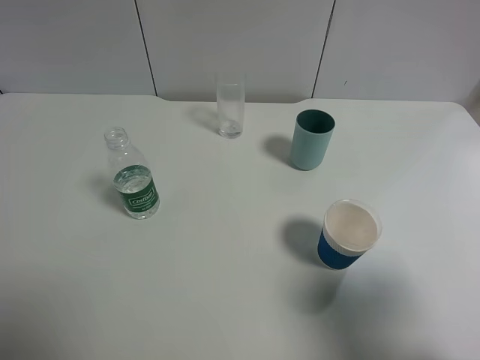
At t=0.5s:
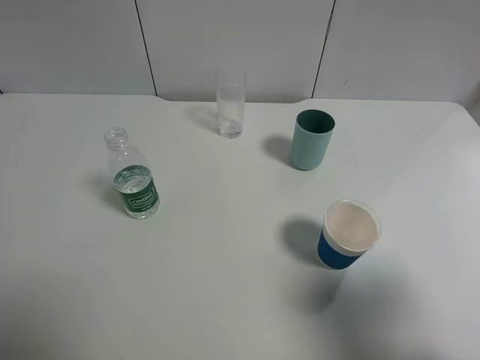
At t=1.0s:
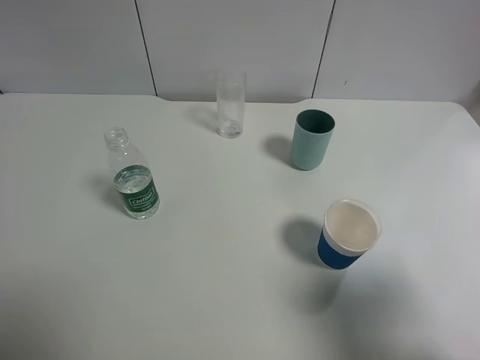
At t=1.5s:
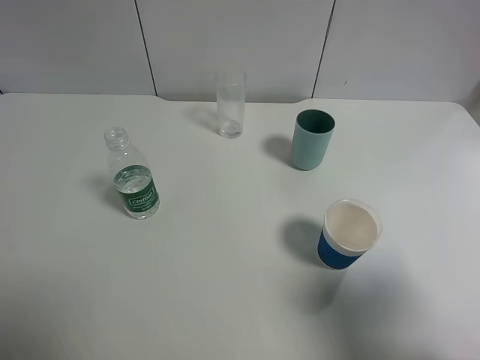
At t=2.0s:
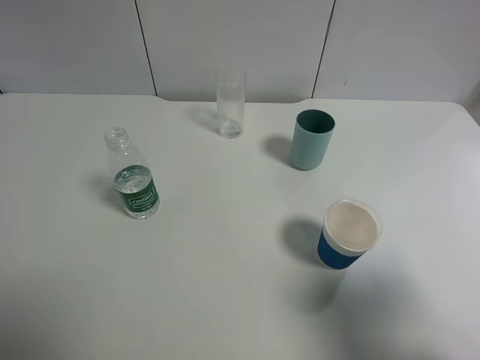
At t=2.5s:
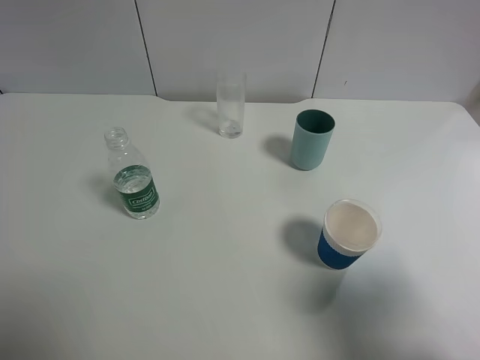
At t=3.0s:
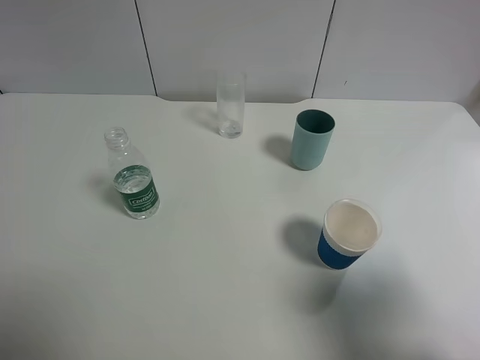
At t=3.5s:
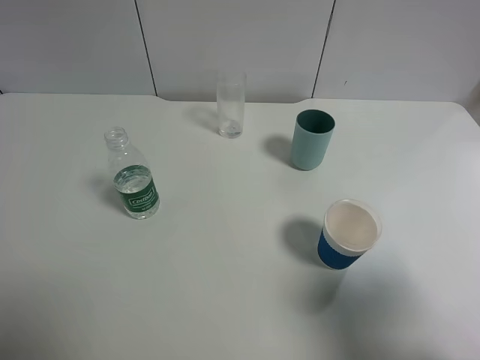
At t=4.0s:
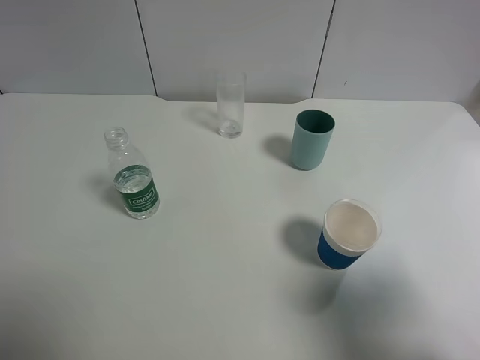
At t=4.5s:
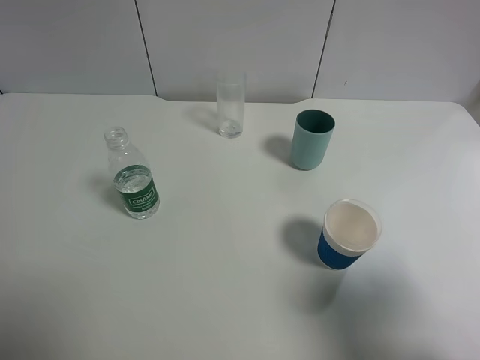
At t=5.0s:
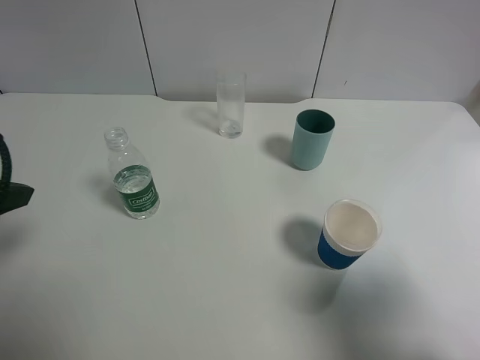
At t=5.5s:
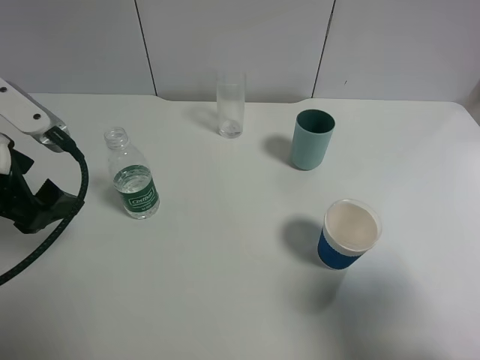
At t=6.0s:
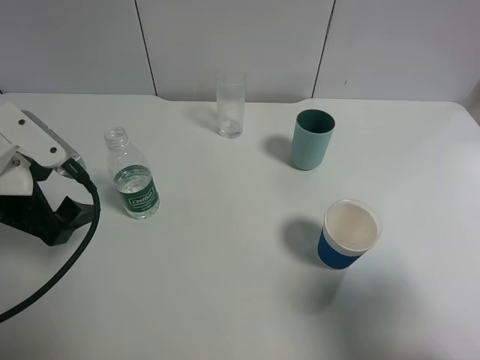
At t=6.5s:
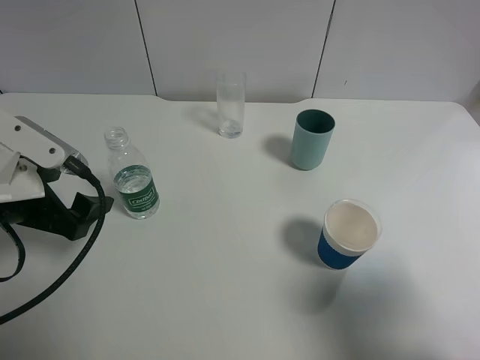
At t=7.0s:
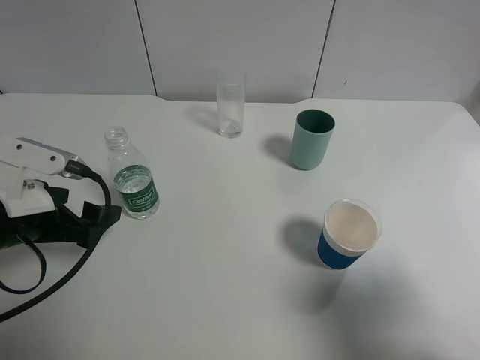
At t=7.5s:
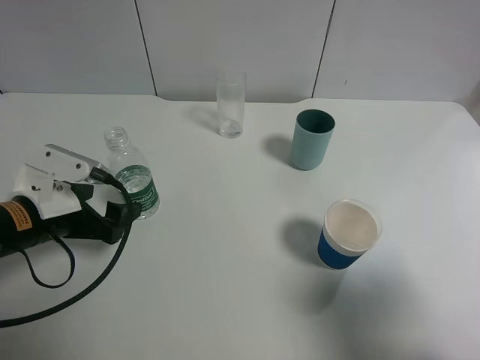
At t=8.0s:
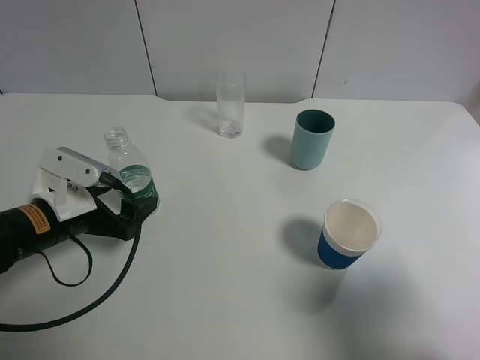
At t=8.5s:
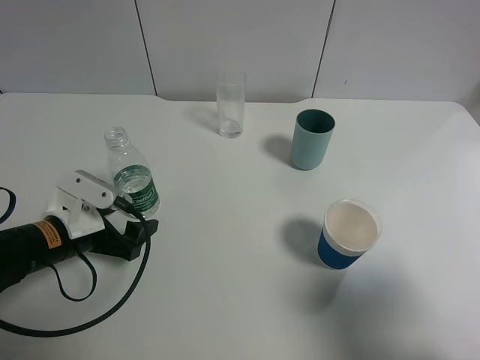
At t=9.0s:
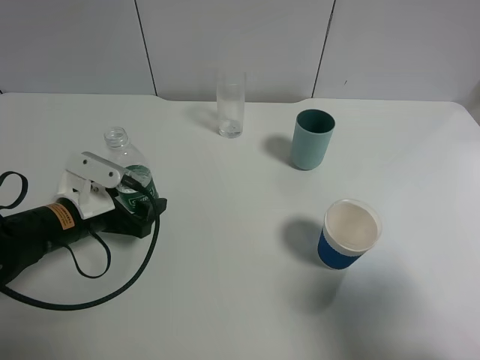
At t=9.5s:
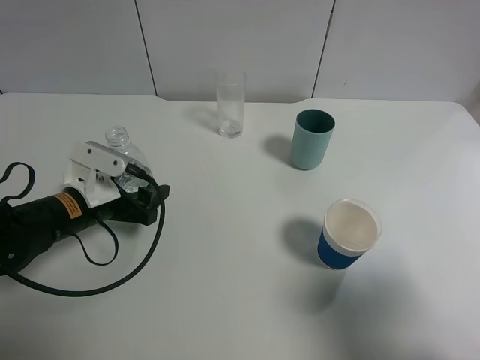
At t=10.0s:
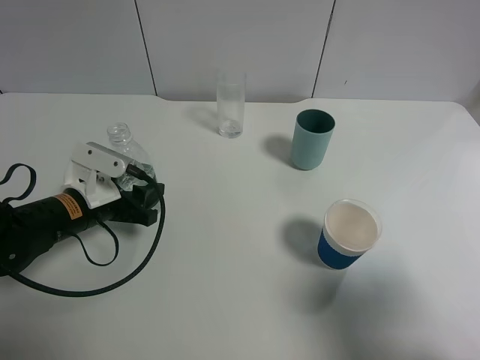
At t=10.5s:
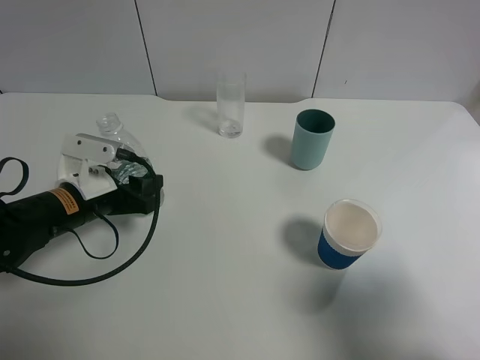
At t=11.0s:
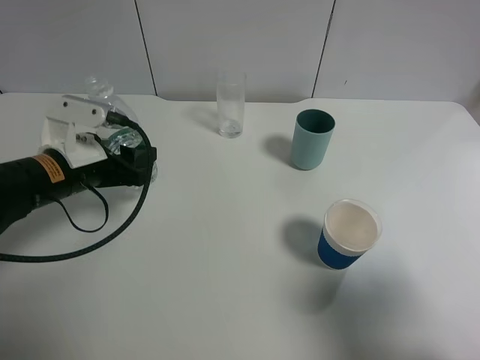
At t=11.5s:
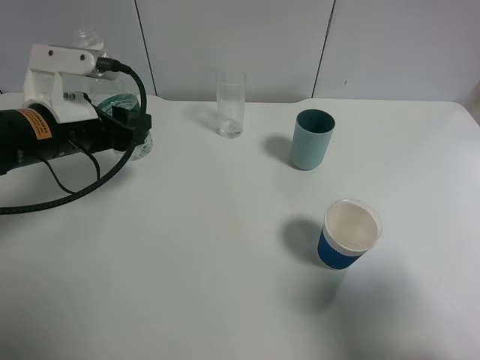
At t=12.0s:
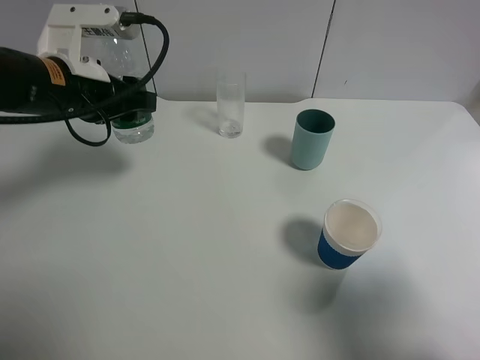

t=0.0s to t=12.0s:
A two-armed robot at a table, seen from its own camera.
Task of the whole recording: use a gripper to hold the bottle of the drink and pour it into a random cup.
Step, t=0.0s to t=10.0s: Grasp the mineral water bottle with the left gripper.
t=0.0s to t=2.0s: The two grippers keep their place.
t=4.0s to t=6.0s: The left gripper shifts roughly 15 cm forward, downward and to the right.
t=6.0s to t=8.0s: The left gripper goes approximately 10 cm downward.
t=8.0s to t=10.0s: The left gripper closes up.
t=10.0s to t=12.0s: The left gripper is displaced upward by roughly 15 cm.

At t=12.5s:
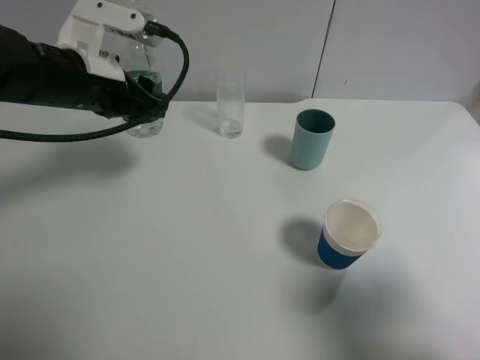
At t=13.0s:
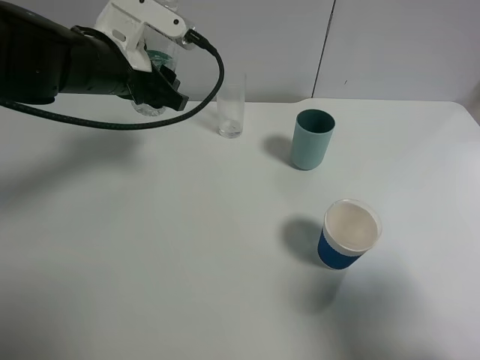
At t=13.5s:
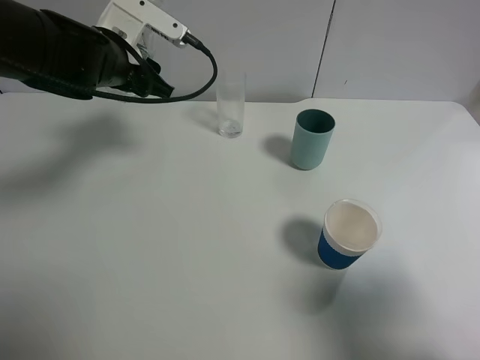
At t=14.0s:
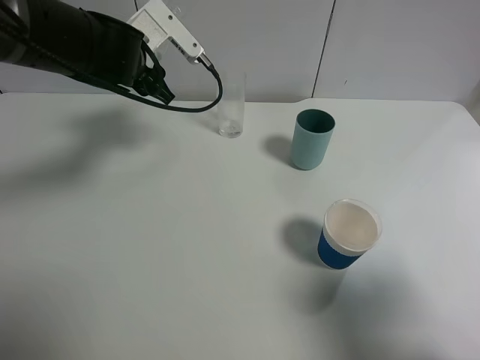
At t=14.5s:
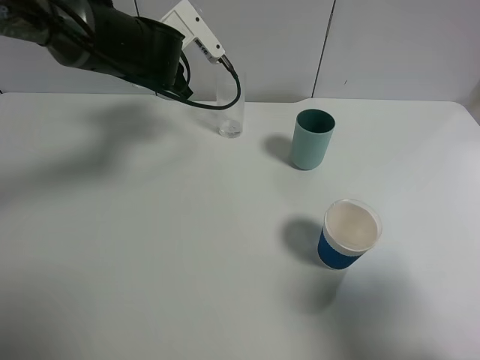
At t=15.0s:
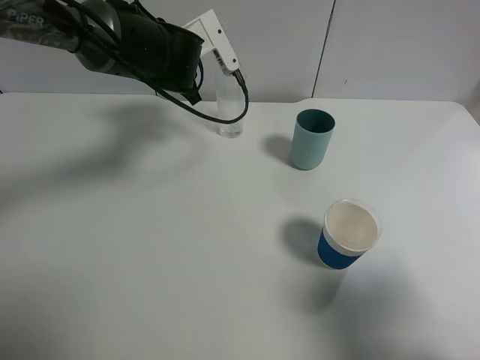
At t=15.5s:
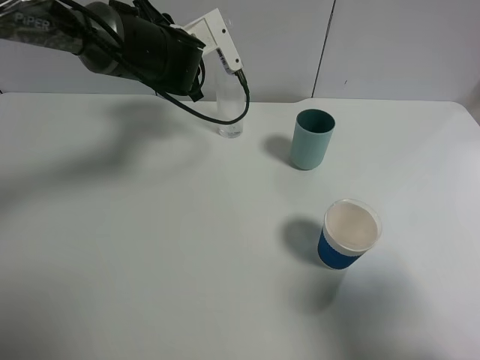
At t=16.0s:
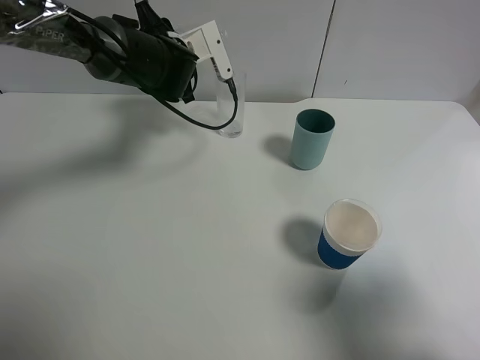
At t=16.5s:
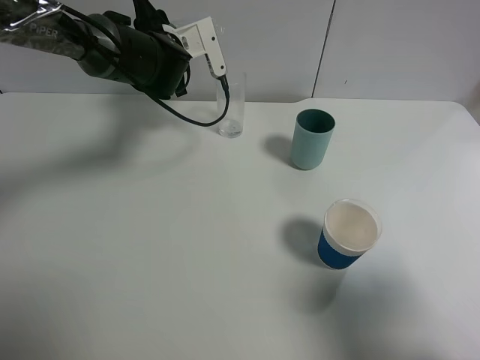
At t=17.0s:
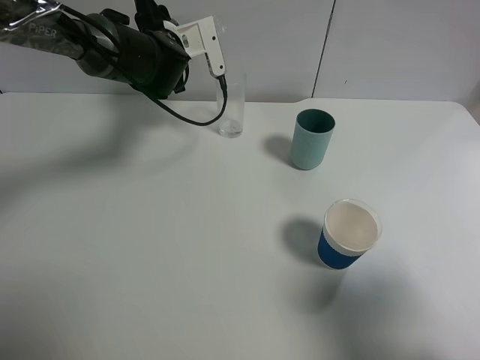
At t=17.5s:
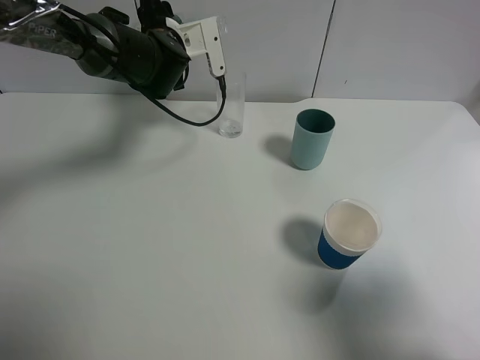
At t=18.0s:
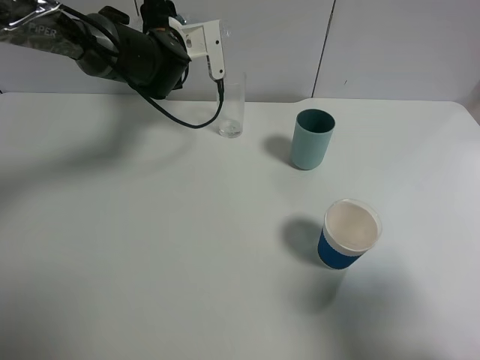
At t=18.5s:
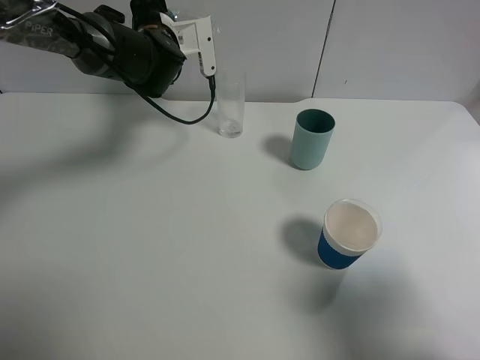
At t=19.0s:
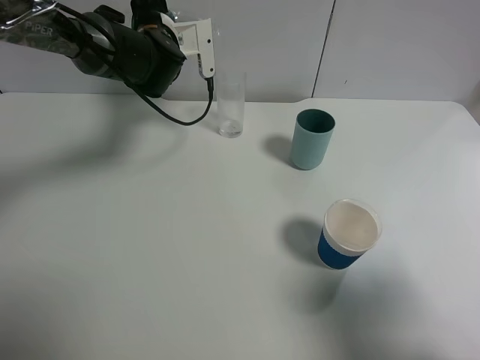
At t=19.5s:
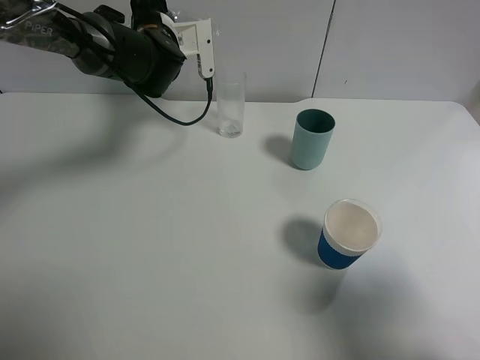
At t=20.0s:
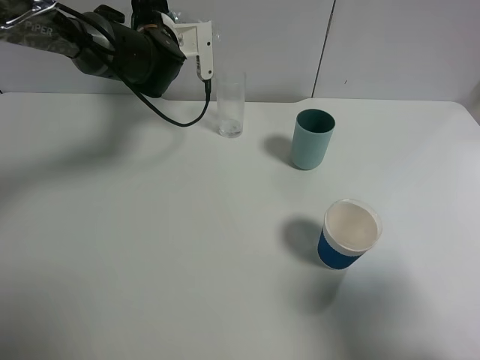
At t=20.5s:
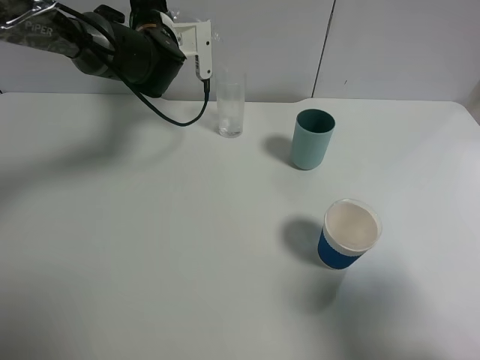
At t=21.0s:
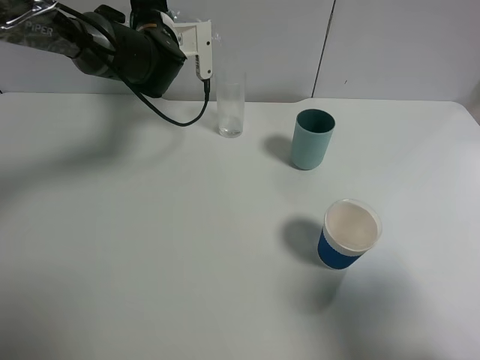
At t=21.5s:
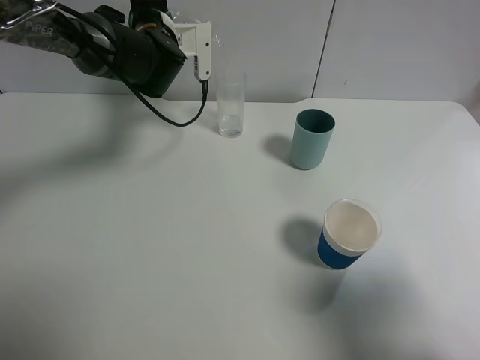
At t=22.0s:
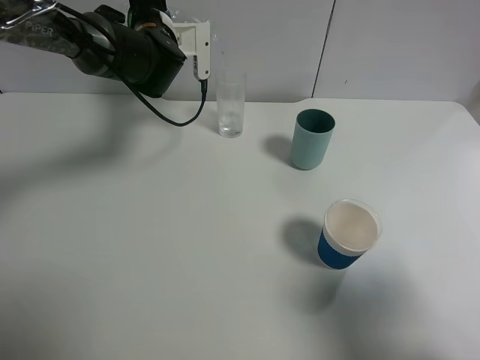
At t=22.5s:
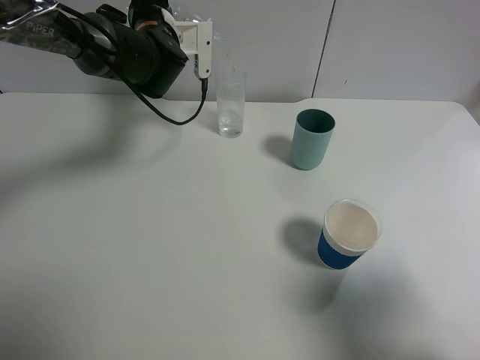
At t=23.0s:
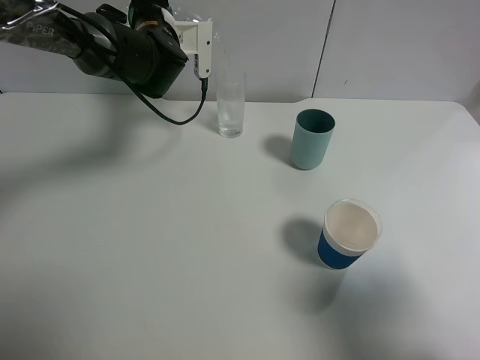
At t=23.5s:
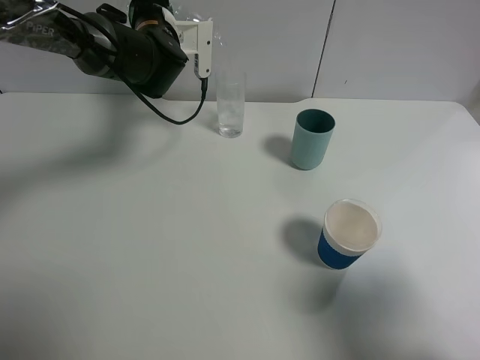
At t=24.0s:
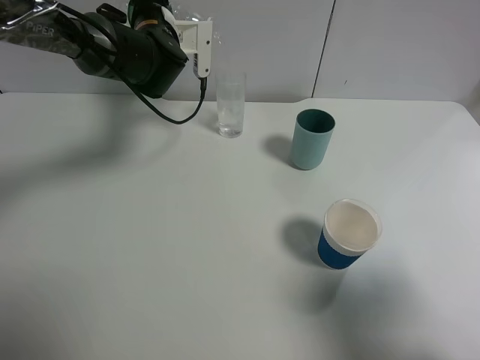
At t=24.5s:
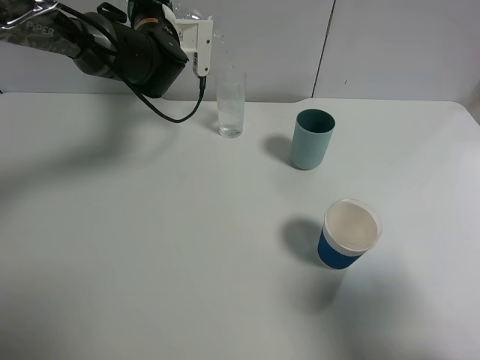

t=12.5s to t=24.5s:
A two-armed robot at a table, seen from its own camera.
Task of the whole recording: use a gripper to hold the bottle of the drink and pour it into a random cup.
t=12.5s to t=14.5s: The left gripper goes roughly 10 cm forward and to the right.
t=16.5s to t=18.5s: The grippers stay close to where they were, moving slightly.
t=20.5s to t=22.5s: Both grippers stay put.
t=22.5s to t=24.5s: Neither gripper changes place.

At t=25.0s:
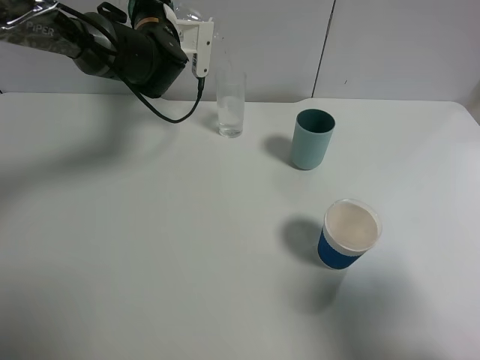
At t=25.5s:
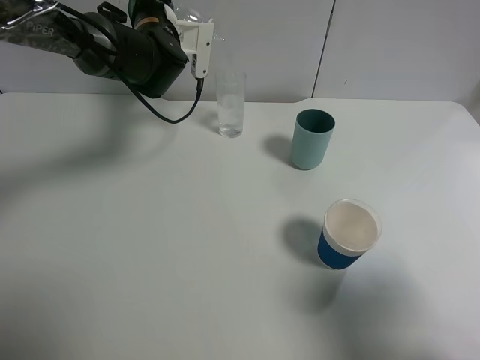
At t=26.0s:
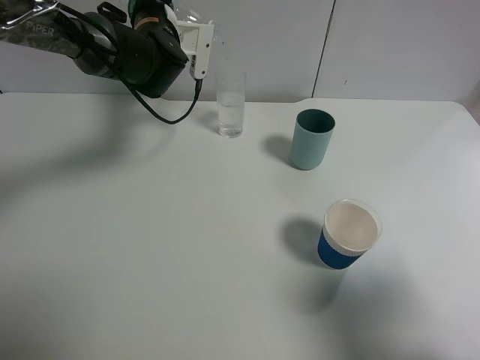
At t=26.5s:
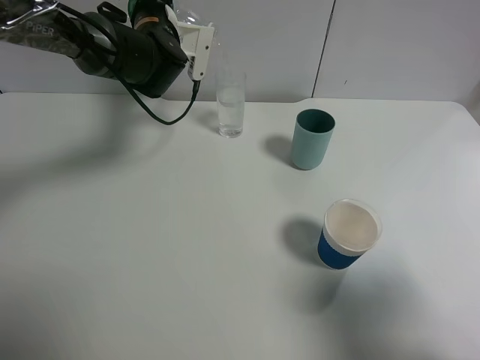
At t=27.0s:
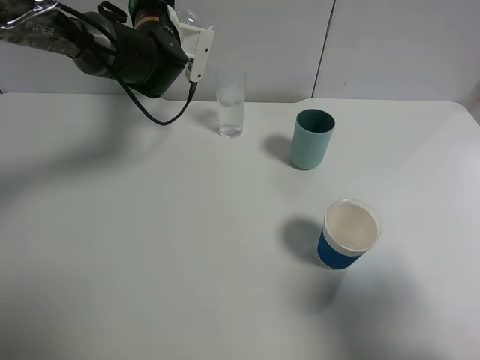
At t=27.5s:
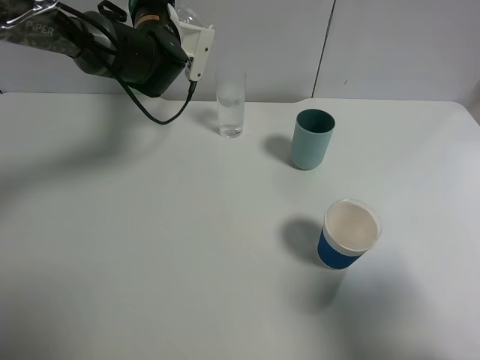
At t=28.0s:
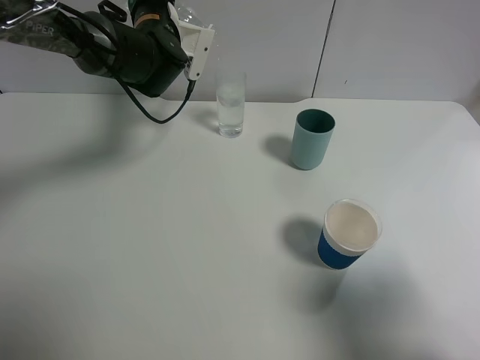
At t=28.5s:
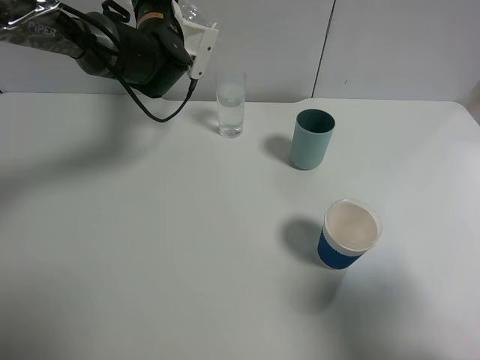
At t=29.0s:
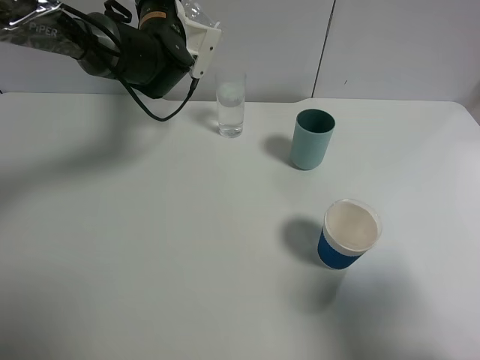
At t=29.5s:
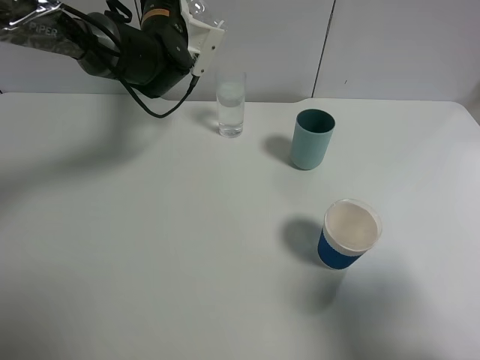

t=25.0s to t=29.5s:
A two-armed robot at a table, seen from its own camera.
Task of the whole recording: use a gripper to hold the bottle of the drink and pour it into a random cup.
t=25.0s to t=29.5s: There are only small adjustments of the grippers.
